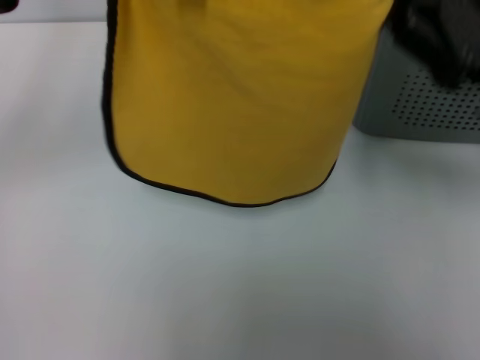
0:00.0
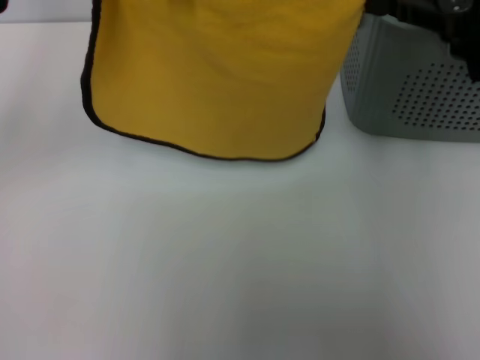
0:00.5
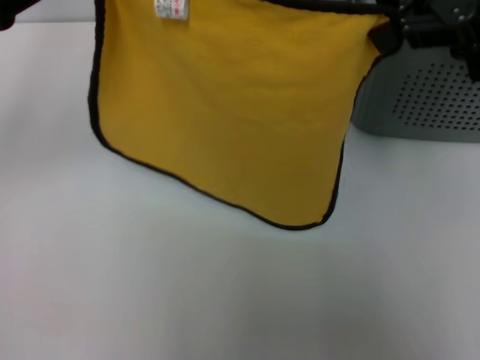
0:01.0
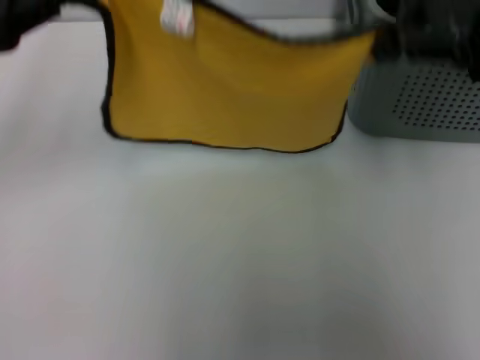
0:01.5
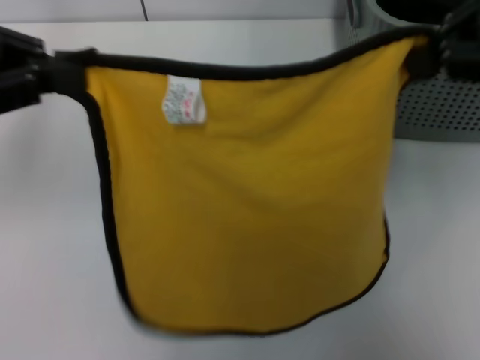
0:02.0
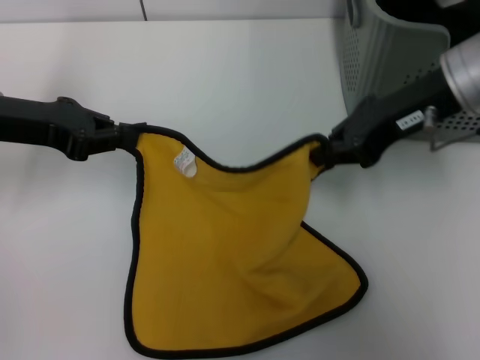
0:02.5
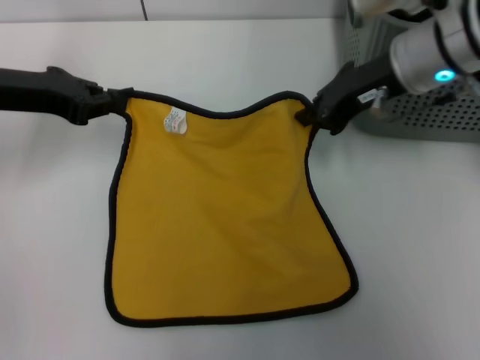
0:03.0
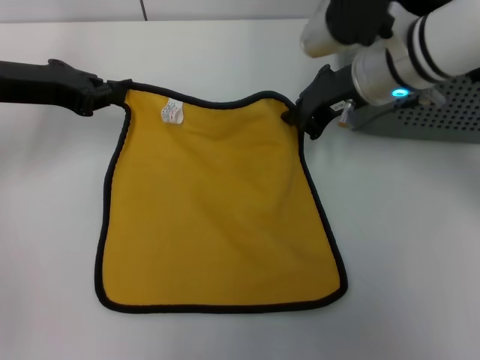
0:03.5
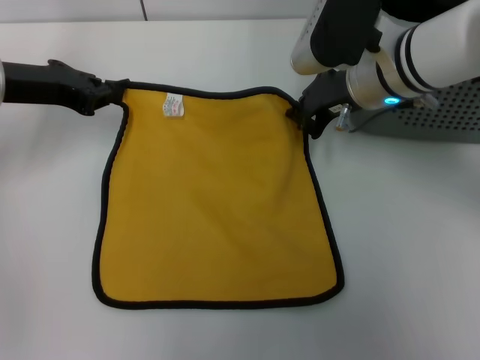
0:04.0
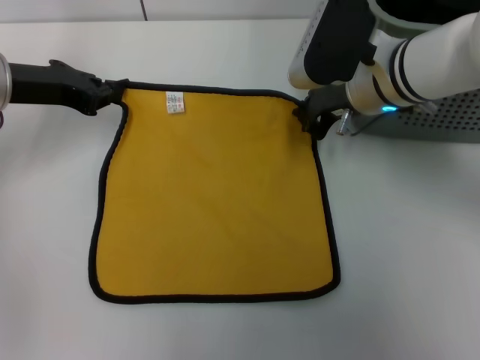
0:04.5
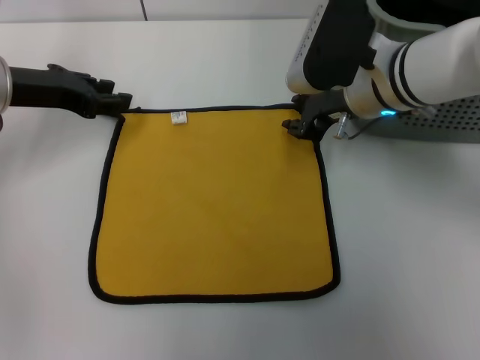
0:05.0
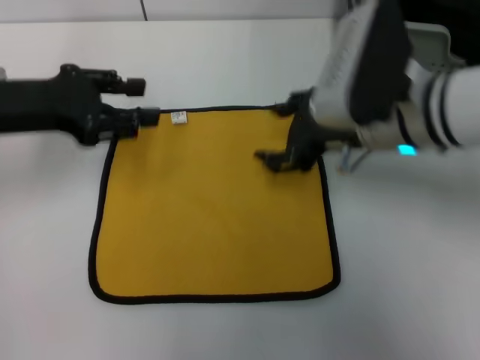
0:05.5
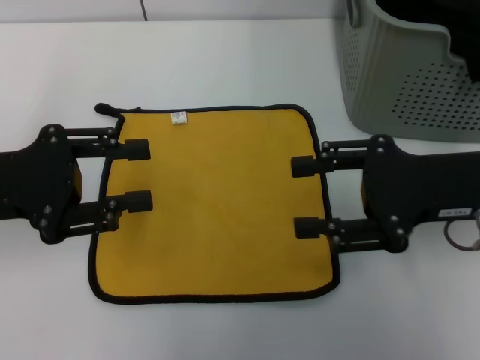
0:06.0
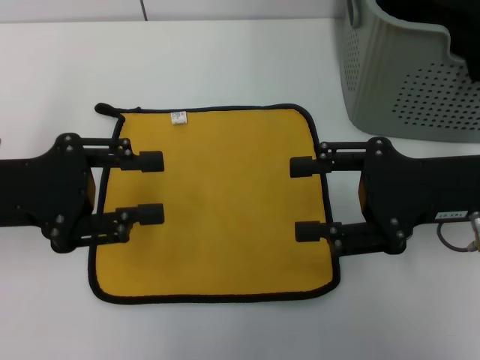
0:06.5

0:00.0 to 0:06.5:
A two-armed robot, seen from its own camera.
Task of the whole recording: pick up the towel from the storage box and lay it flat on the table.
Step, 0:00.0 to 0:04.5: Spread the towel flat with the left gripper.
0:00.0 to 0:02.0: The right gripper shifts about 15 cm upward.
0:02.0 to 0:04.5: The right gripper heads downward, to the left and forward, covering about 25 cm; the left gripper goes roughly 15 cm downward and forward.
0:04.5 to 0:06.5: The right gripper travels backward and to the right by roughly 15 cm, and opens. Meanwhile the left gripper shifts approximately 10 cm backward, and opens its fingers.
